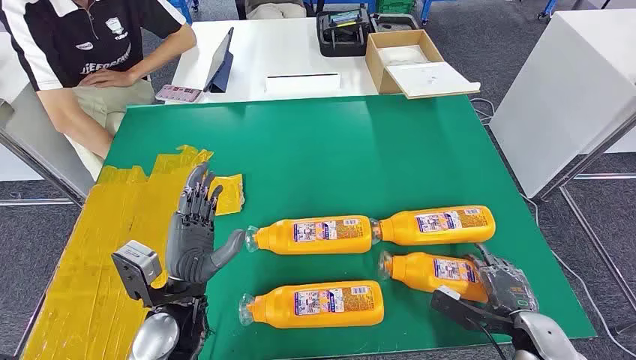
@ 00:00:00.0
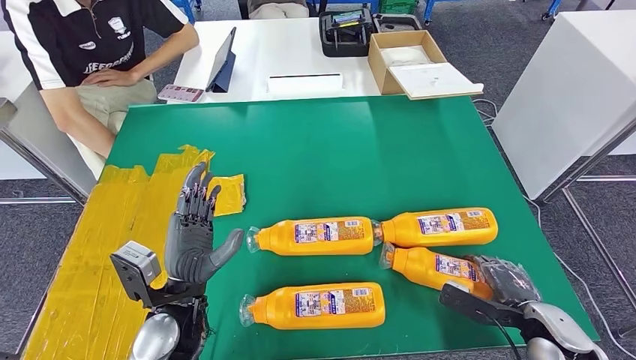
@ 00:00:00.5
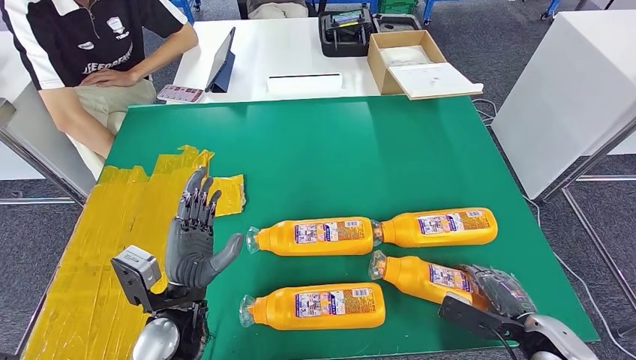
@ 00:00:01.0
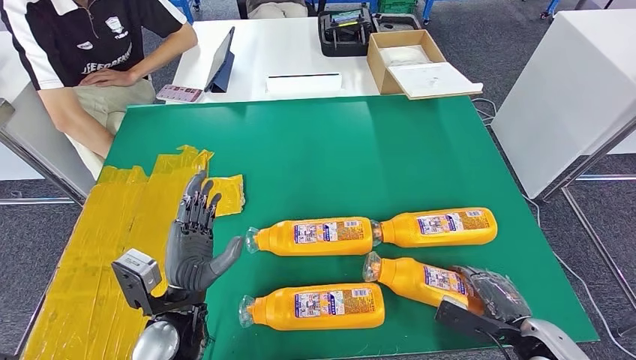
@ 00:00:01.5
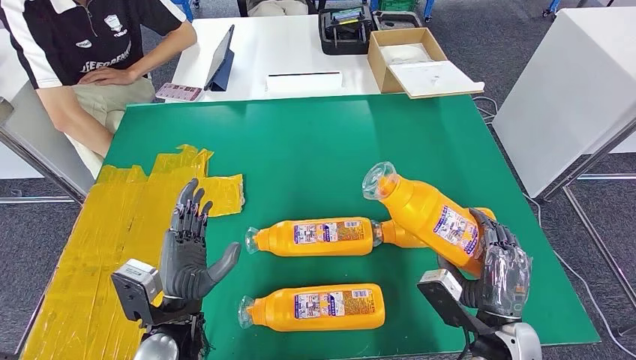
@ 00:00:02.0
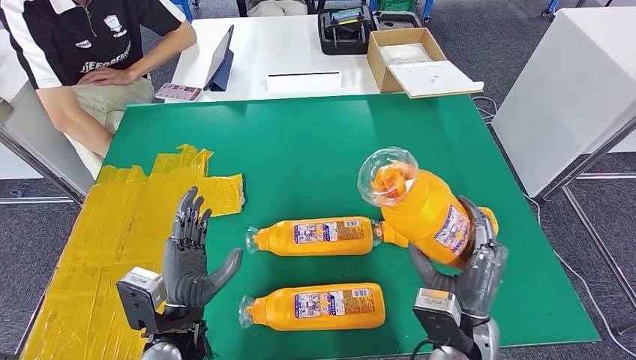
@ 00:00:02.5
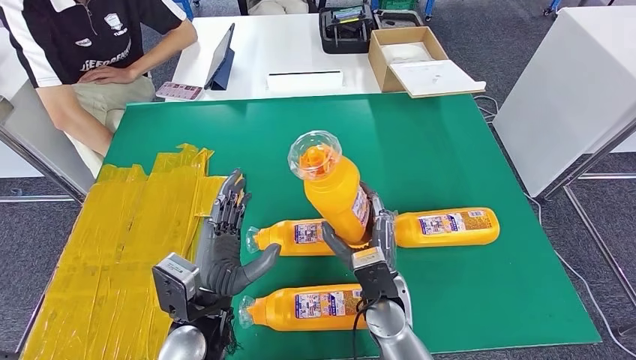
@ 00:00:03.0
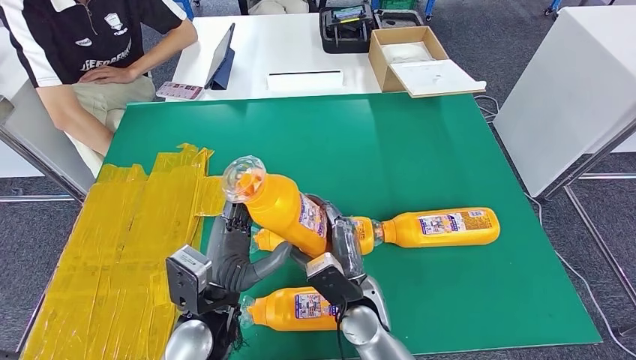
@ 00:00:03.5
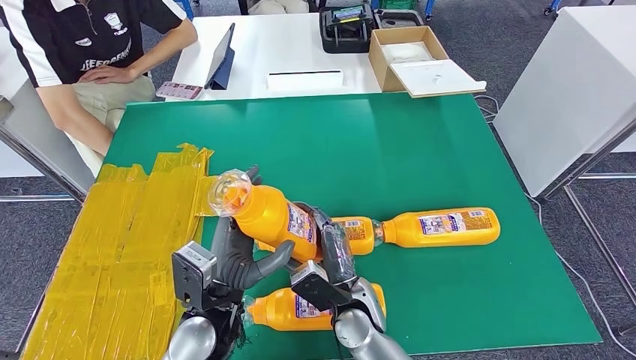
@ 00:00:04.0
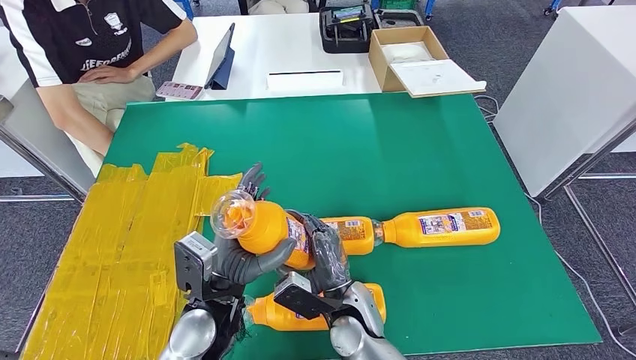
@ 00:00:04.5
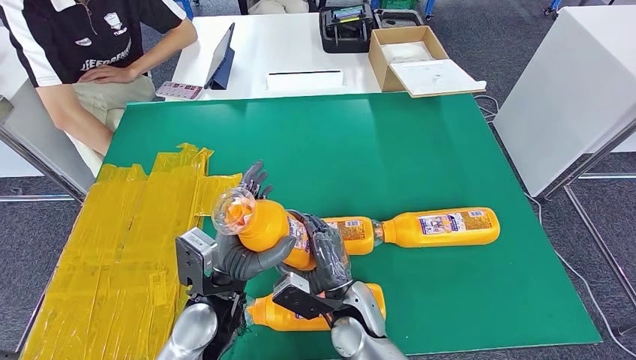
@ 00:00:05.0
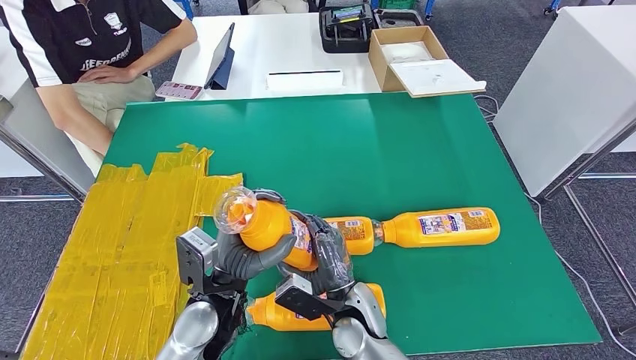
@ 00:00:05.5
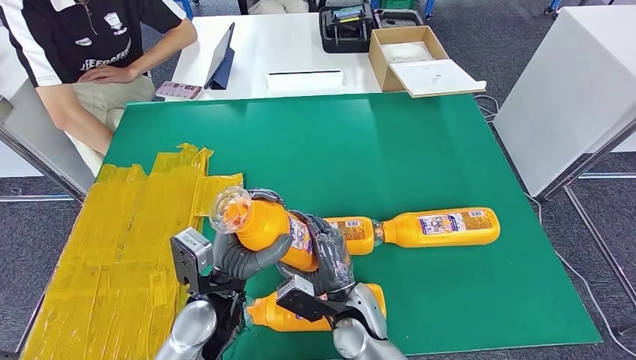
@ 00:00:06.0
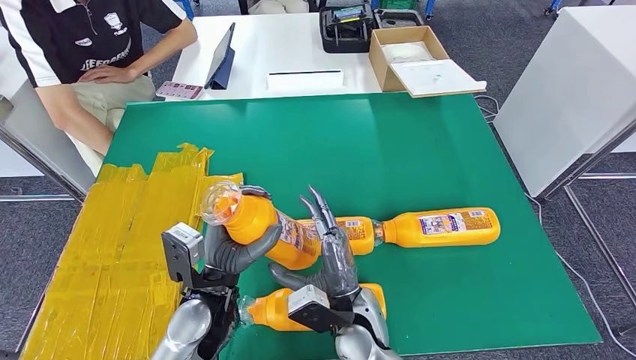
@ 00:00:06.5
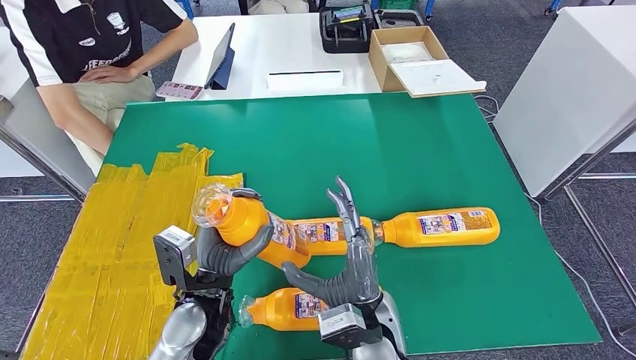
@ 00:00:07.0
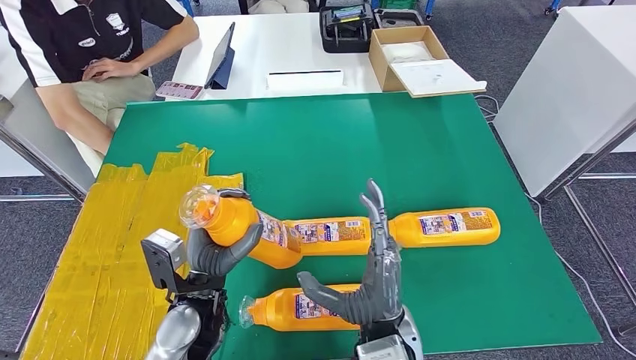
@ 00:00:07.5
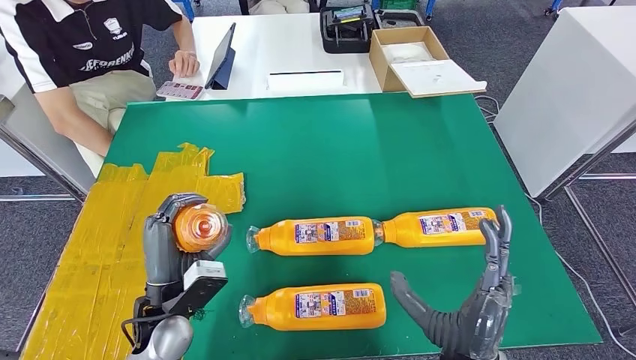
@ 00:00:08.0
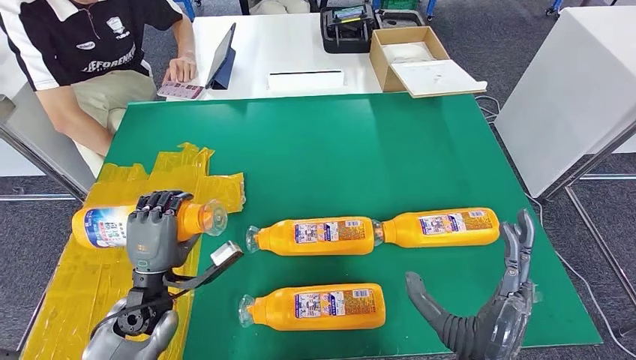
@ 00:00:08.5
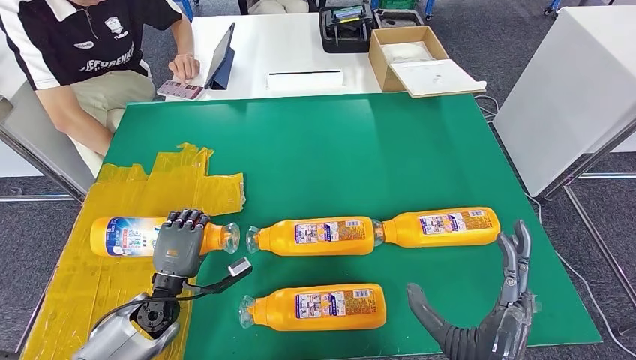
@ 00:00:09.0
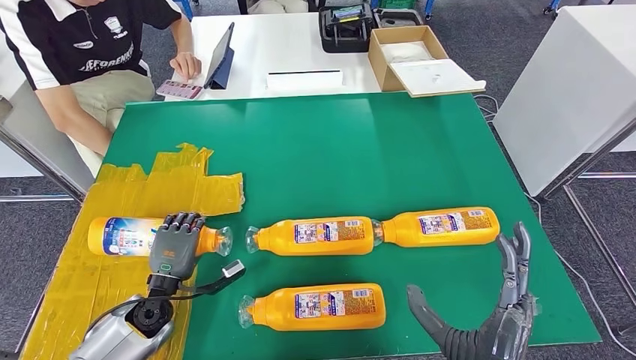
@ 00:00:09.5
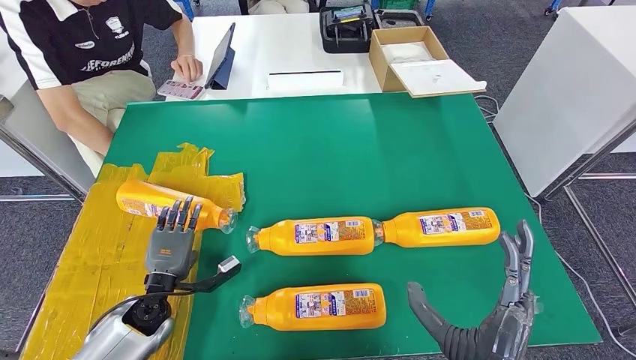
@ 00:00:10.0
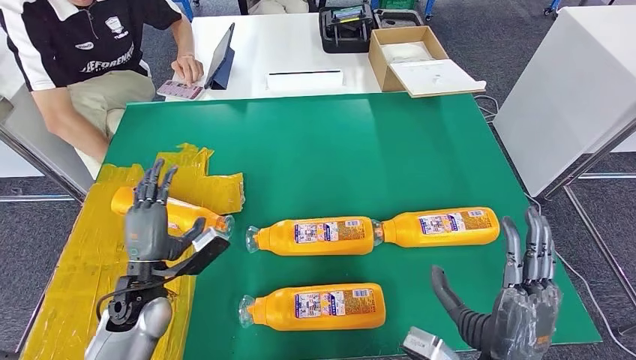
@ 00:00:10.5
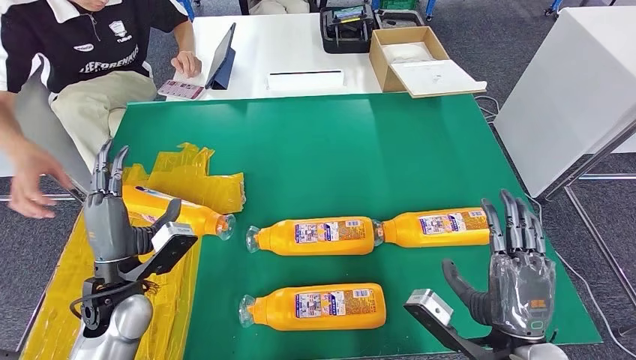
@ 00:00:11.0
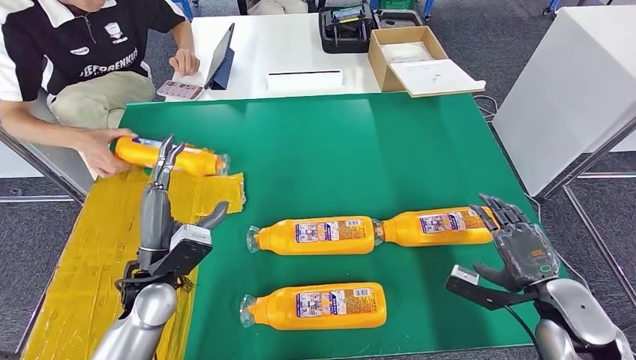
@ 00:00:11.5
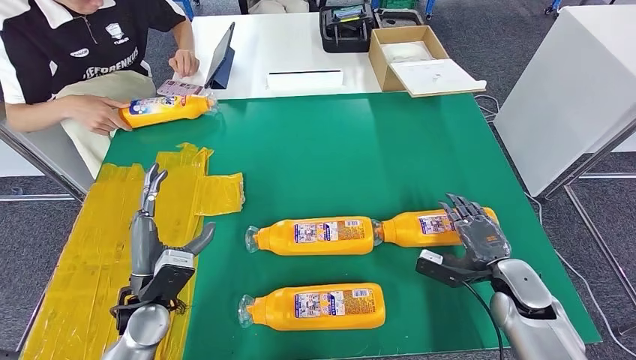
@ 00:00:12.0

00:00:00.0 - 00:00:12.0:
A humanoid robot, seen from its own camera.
Step, 00:00:00.0 - 00:00:04.0: Take the fast-moving consumer goods bottle from the table.
Step, 00:00:04.5 - 00:00:09.5: Flip the fast-moving consumer goods bottle to the front side.
00:00:04.0 - 00:00:06.0: The hands make only small movements.
00:00:06.0 - 00:00:08.0: The left hand is displaced to the left by some 10 cm; the right hand moves to the right, upward and backward, approximately 15 cm.
00:00:08.0 - 00:00:10.0: The left hand shifts some 10 cm downward and to the left.
00:00:10.0 - 00:00:12.0: The left hand moves upward, about 5 cm, while the right hand travels to the right, forward and downward by roughly 25 cm.

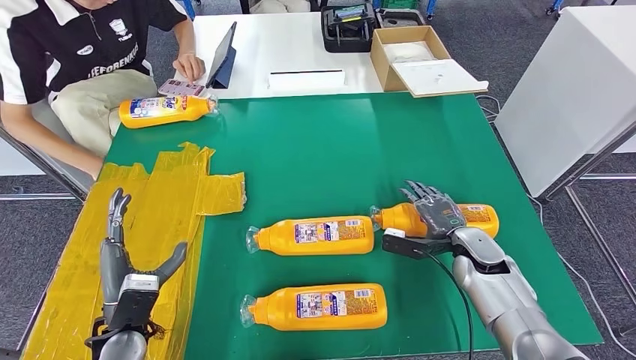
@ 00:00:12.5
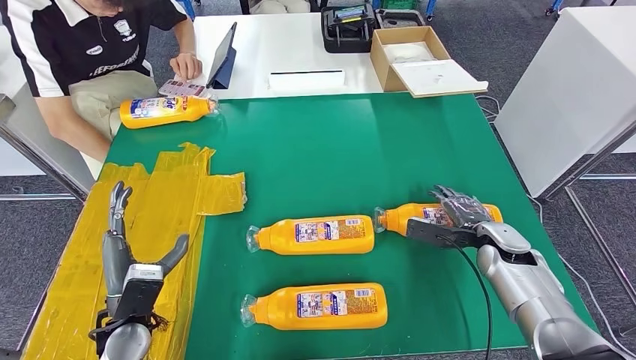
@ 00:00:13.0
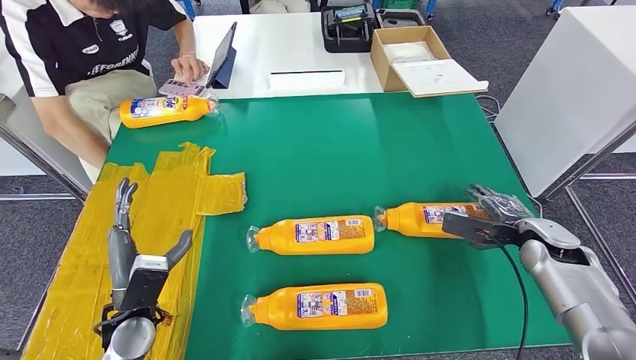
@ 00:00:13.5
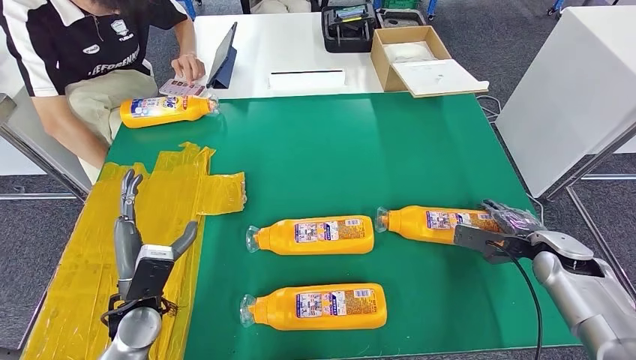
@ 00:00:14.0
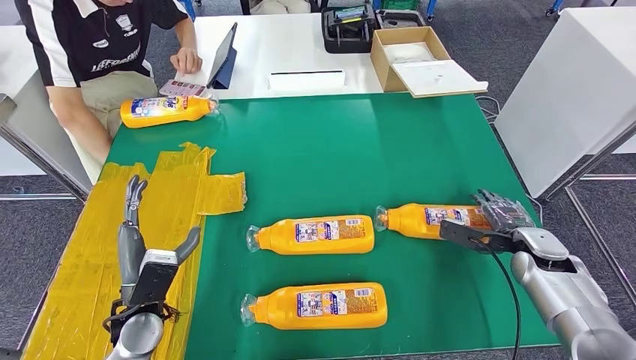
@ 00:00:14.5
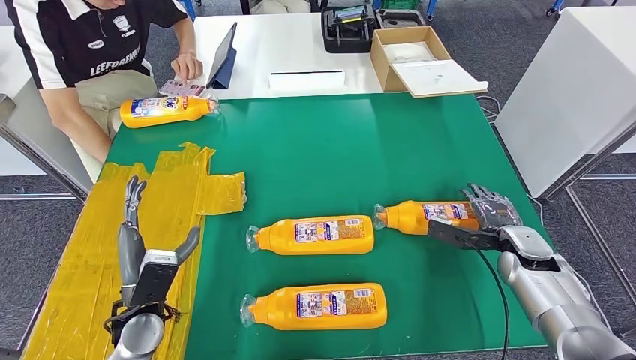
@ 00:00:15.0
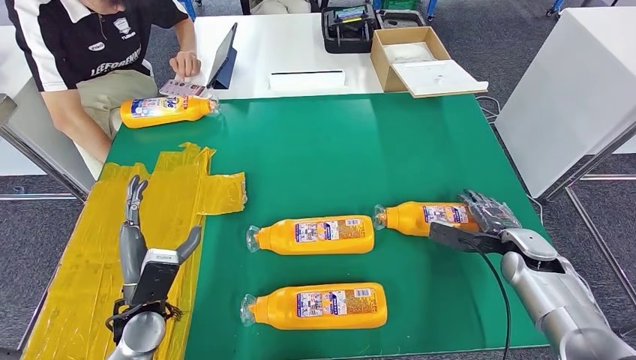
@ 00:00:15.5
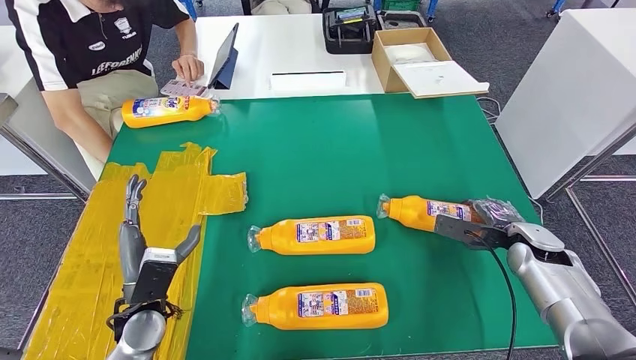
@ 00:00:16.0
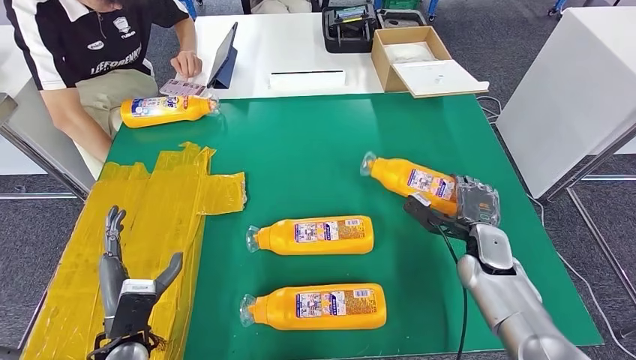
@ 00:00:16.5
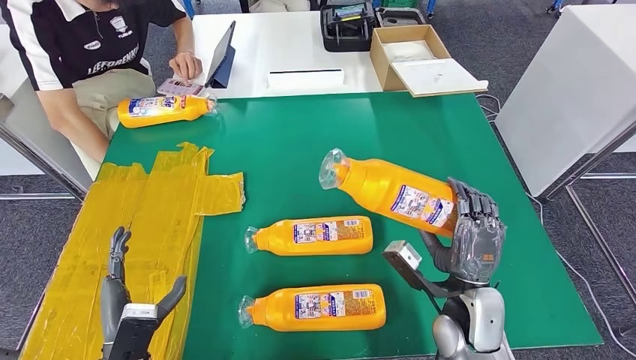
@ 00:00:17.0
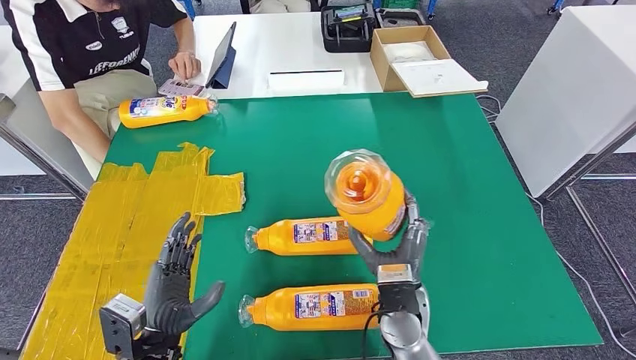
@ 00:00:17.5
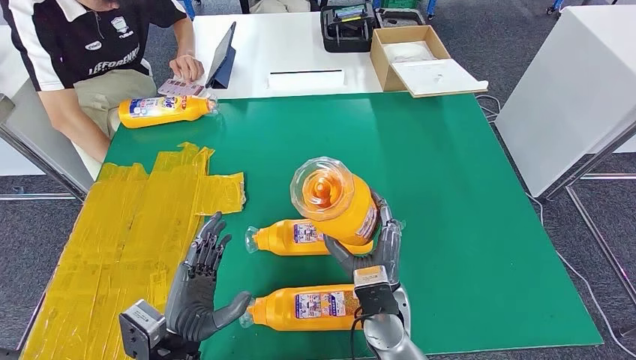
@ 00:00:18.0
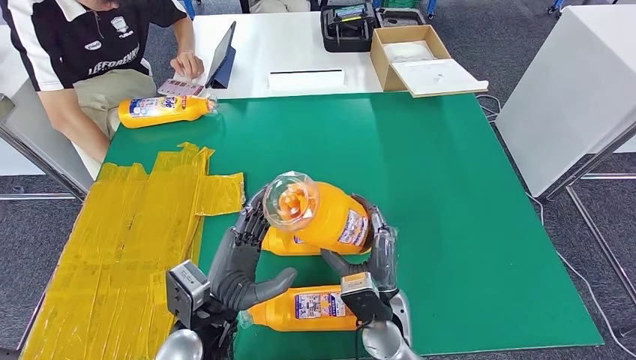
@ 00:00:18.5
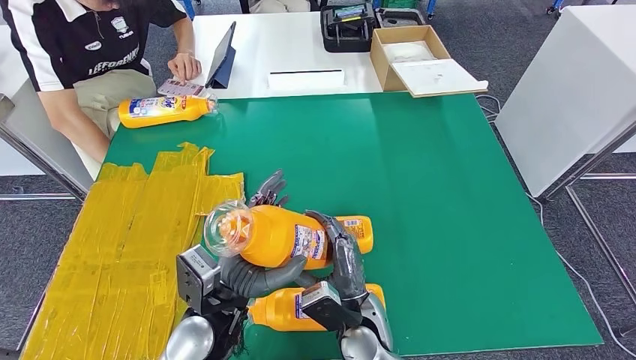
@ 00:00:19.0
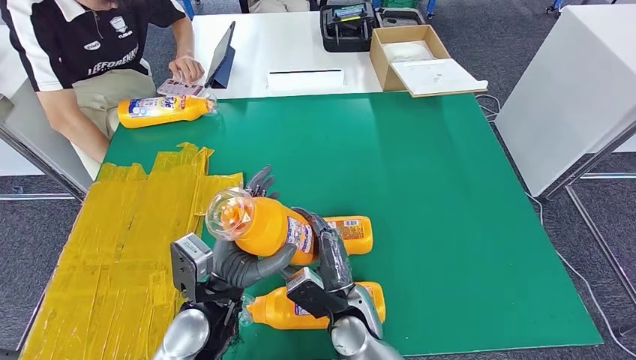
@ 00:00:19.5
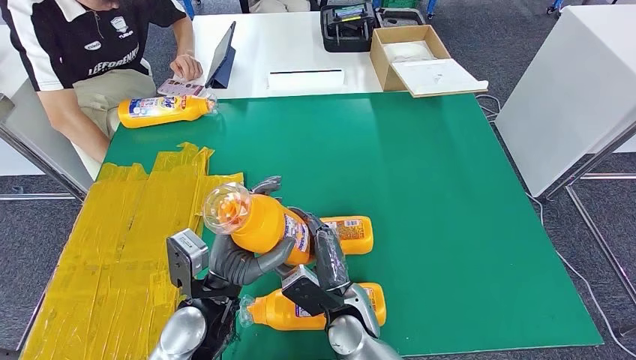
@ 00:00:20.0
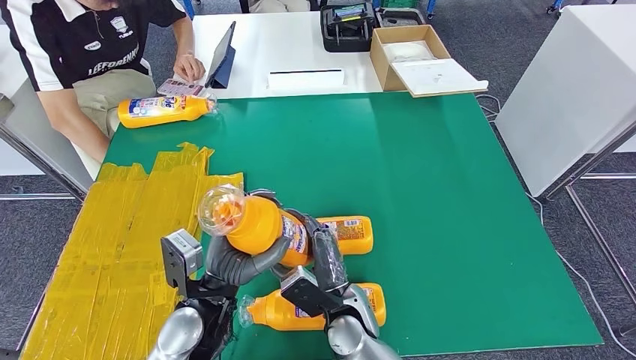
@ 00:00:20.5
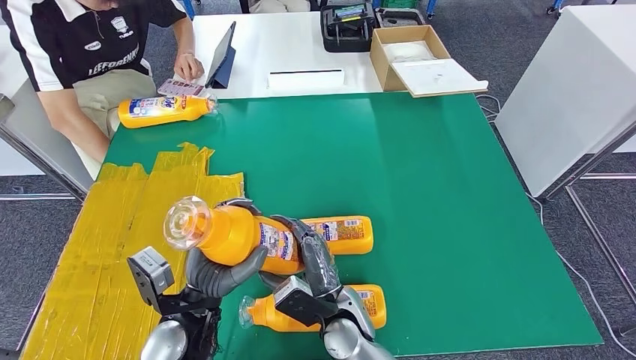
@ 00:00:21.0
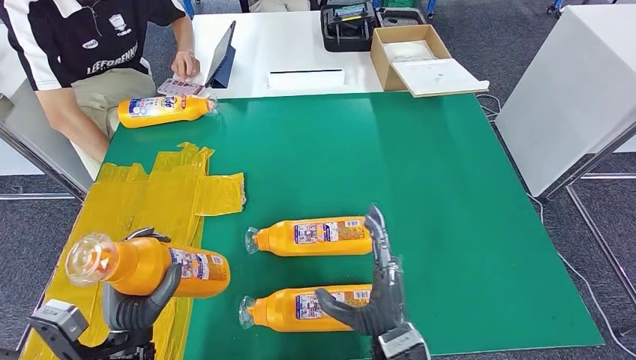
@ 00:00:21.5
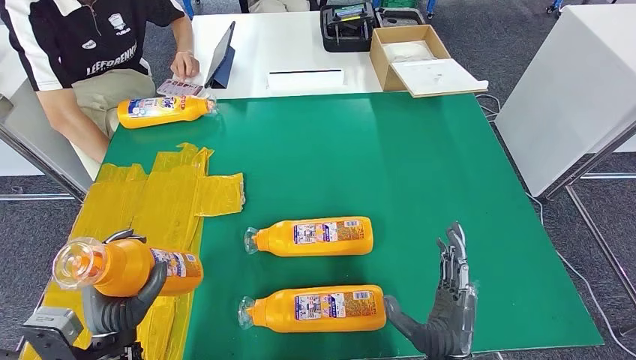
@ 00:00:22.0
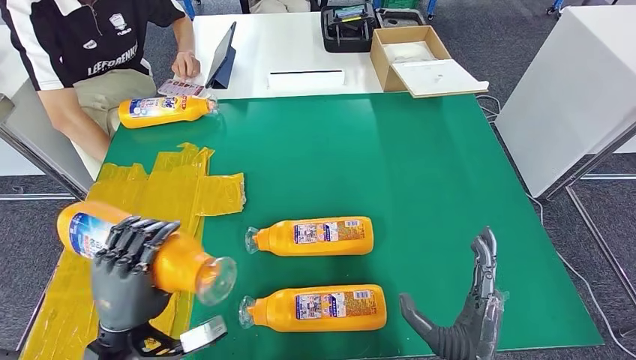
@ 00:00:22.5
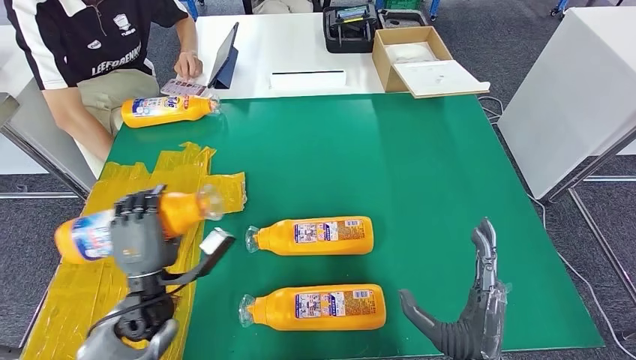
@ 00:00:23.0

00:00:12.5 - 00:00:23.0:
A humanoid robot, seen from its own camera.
Step, 00:00:14.5 - 00:00:18.5: Pick up the fast-moving consumer goods bottle from the table.
00:00:19.0 - 00:00:21.0: The hands move only a little.
